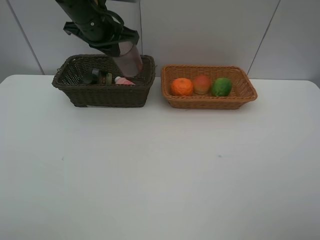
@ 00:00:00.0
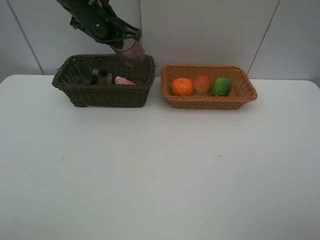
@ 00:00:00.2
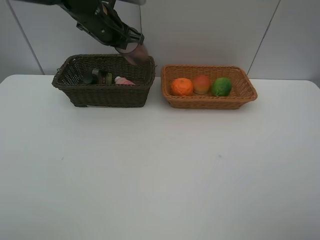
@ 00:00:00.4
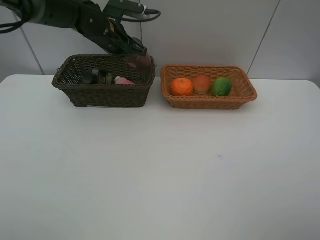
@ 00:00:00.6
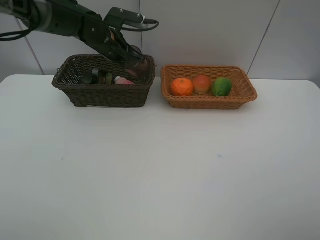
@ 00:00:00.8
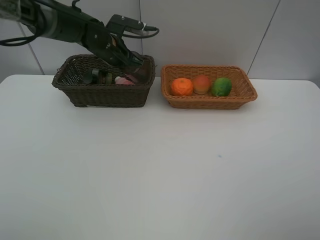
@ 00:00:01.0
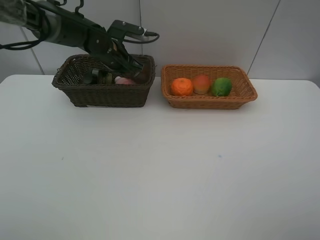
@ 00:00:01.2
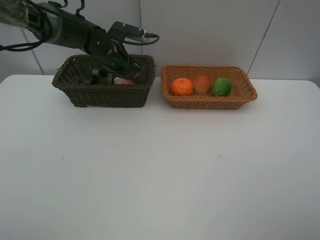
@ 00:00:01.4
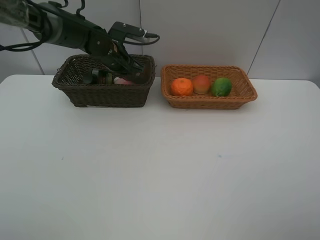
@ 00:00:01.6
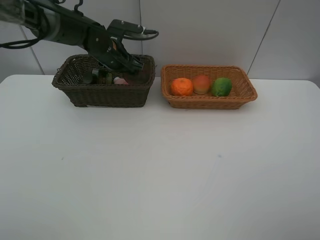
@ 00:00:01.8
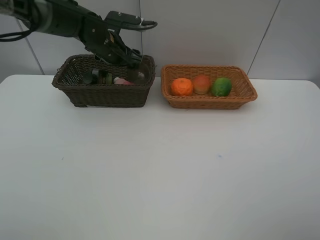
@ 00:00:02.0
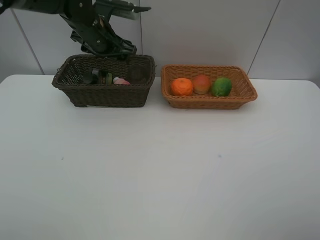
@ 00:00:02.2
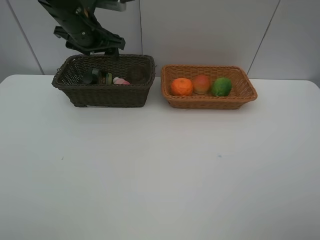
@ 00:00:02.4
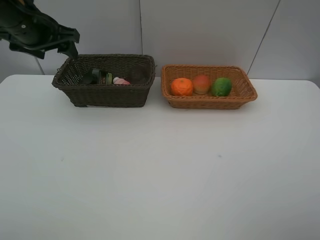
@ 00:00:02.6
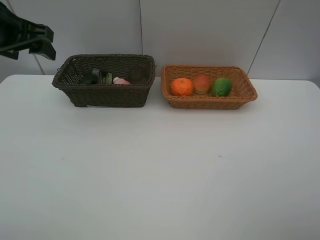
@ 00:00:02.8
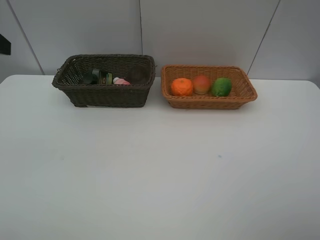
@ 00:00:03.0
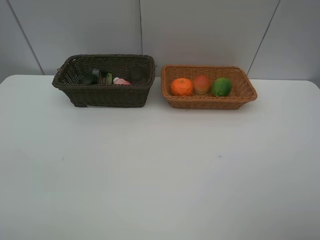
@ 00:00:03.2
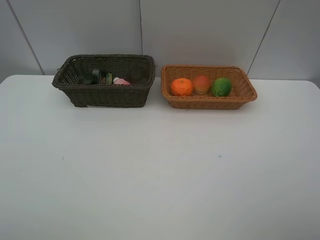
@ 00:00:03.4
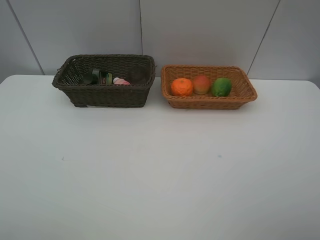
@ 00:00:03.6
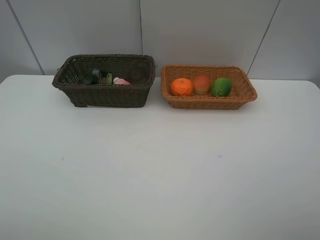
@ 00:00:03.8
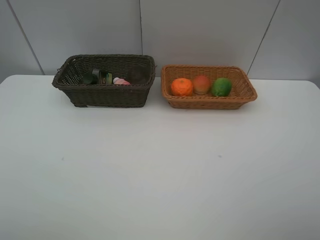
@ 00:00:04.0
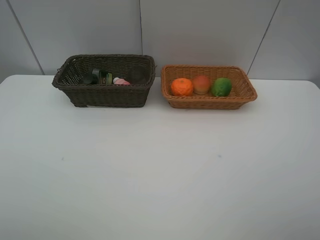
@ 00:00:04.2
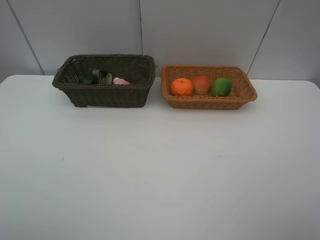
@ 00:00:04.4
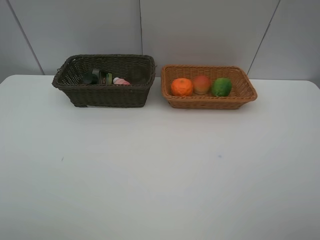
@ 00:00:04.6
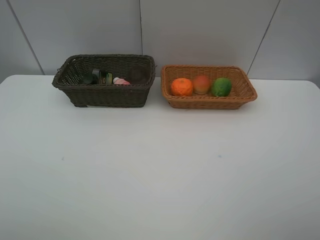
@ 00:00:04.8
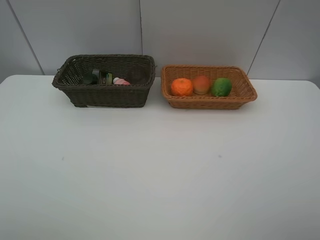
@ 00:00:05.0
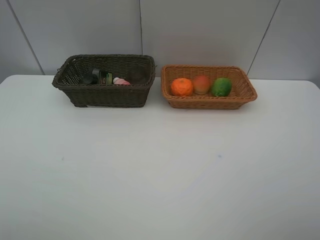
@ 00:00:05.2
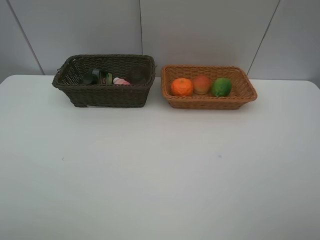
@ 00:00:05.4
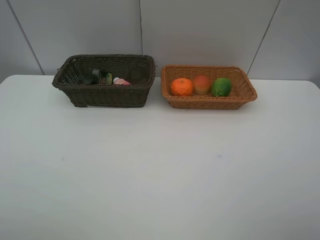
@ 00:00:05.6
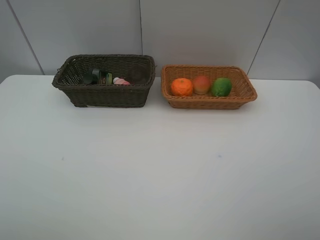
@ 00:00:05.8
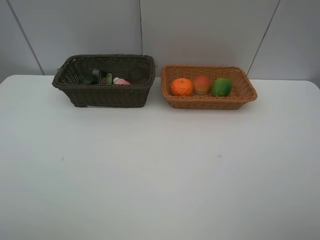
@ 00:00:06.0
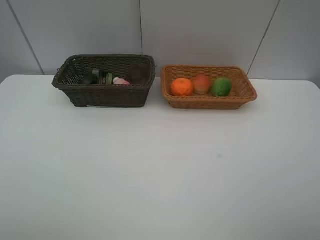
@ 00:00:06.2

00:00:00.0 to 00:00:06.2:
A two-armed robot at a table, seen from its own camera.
Task of the whole recording: place multiple objects separately in different baskets.
00:00:00.0 to 00:00:01.6: The left gripper heads downward and forward, covering roughly 15 cm.
00:00:01.6 to 00:00:03.2: The left gripper moves backward, upward and to the left, some 40 cm, and opens.
00:00:04.6 to 00:00:06.2: Both grippers stay put.
